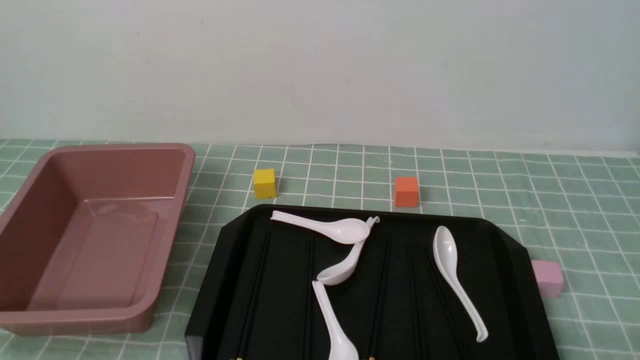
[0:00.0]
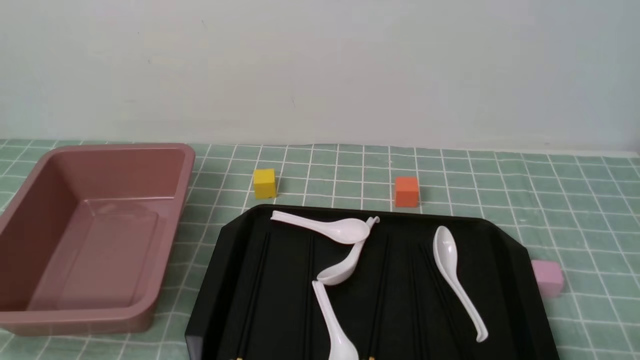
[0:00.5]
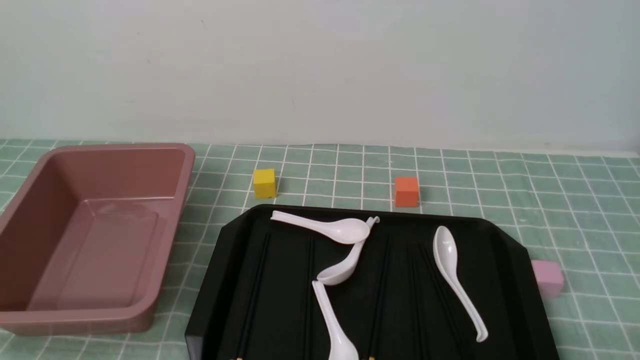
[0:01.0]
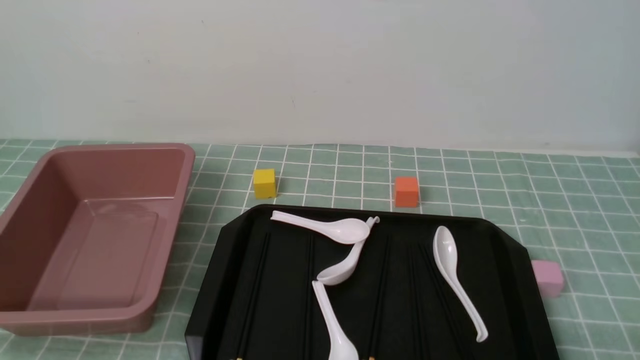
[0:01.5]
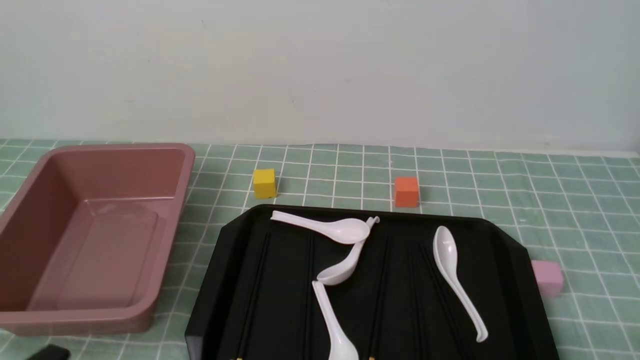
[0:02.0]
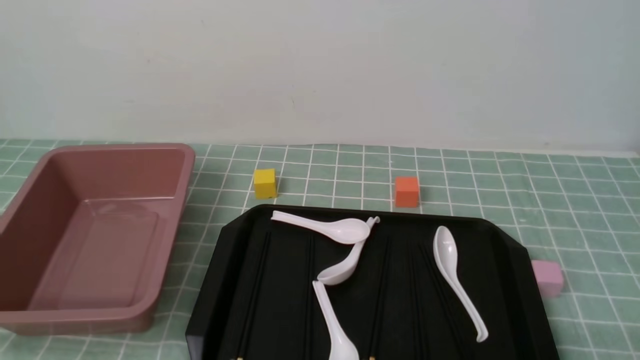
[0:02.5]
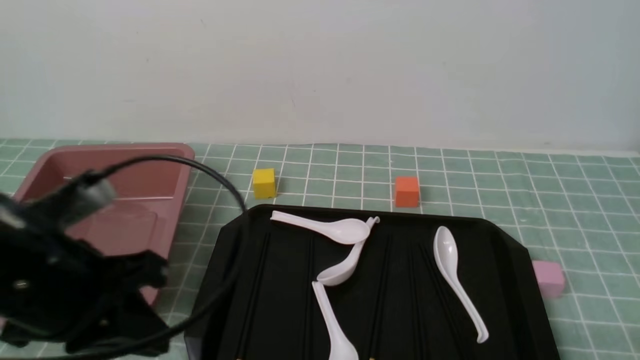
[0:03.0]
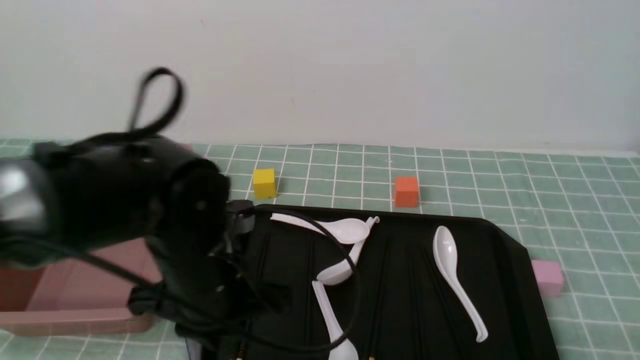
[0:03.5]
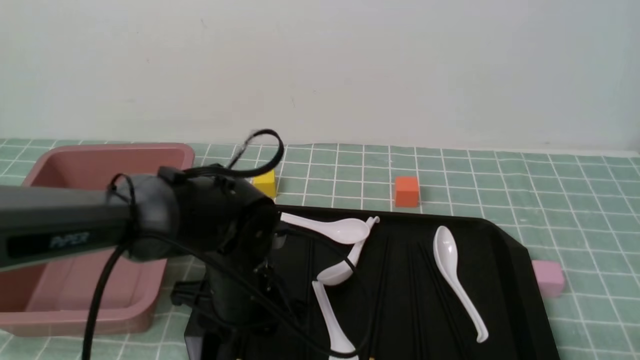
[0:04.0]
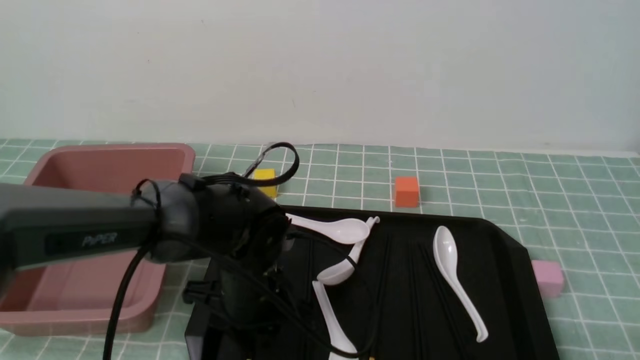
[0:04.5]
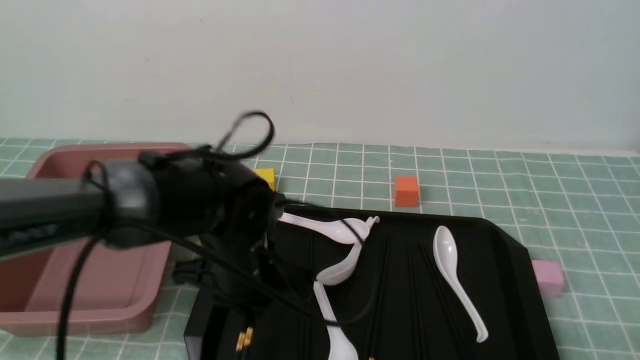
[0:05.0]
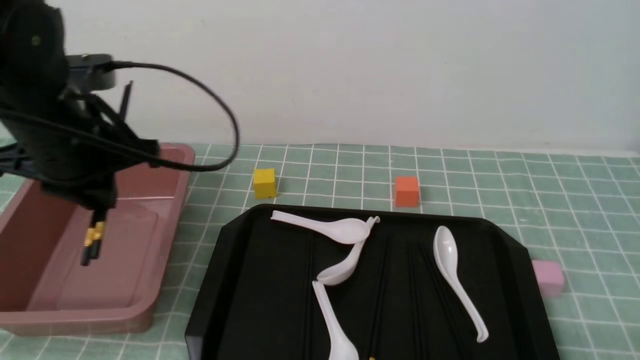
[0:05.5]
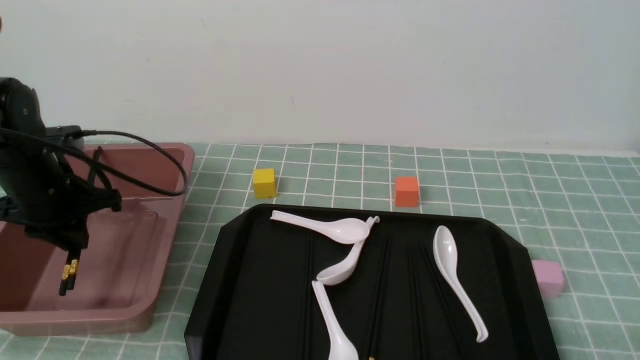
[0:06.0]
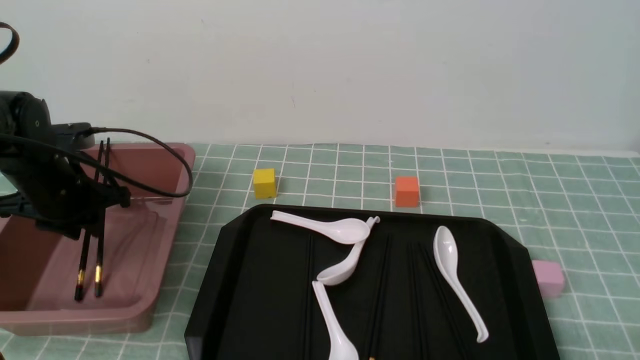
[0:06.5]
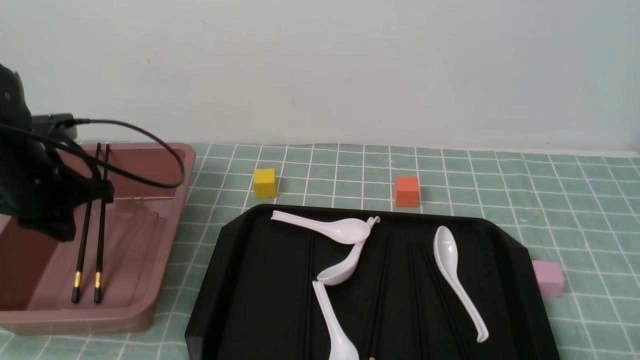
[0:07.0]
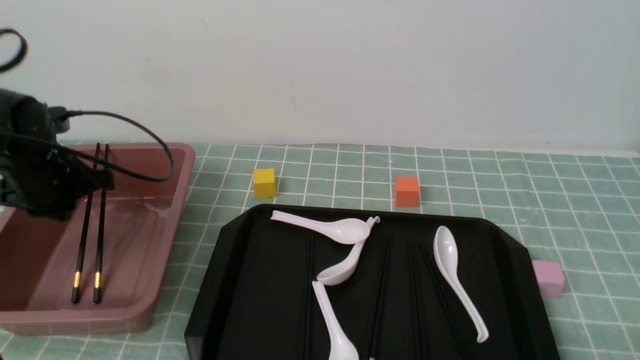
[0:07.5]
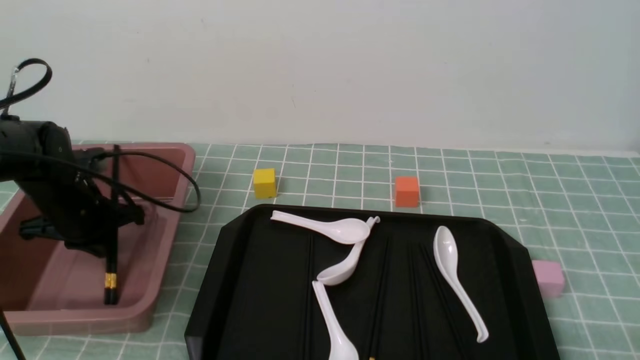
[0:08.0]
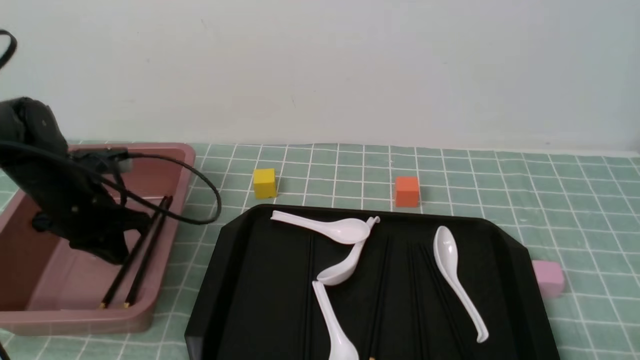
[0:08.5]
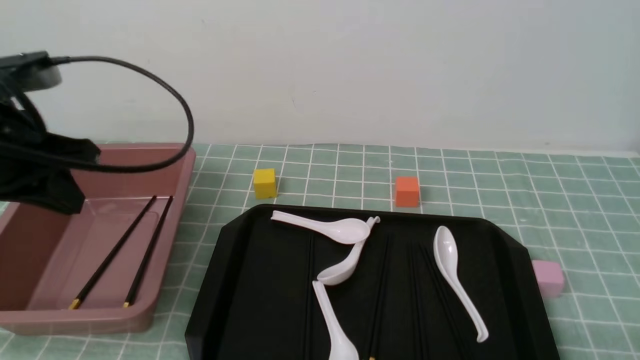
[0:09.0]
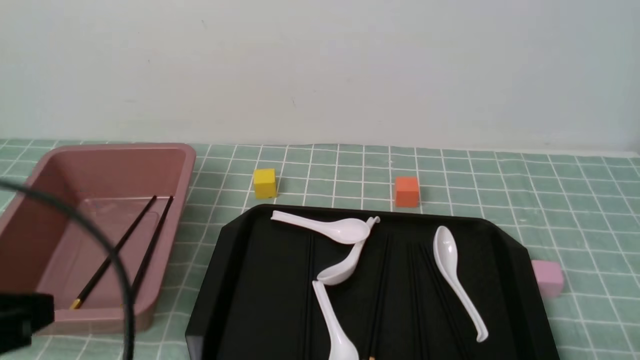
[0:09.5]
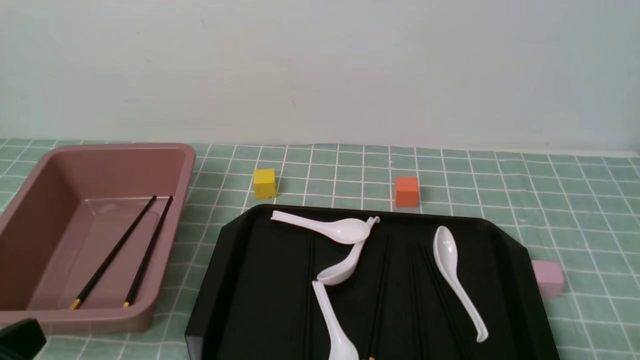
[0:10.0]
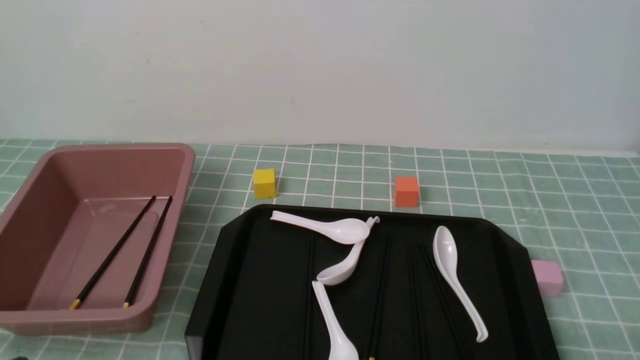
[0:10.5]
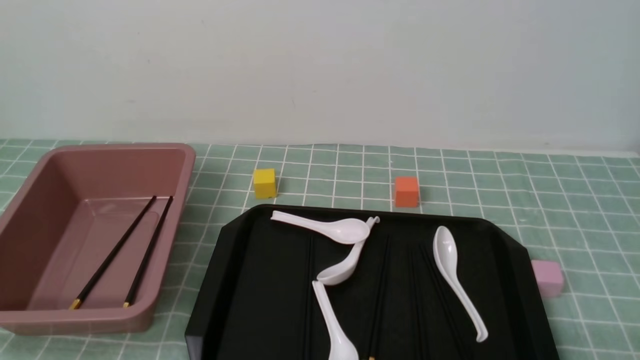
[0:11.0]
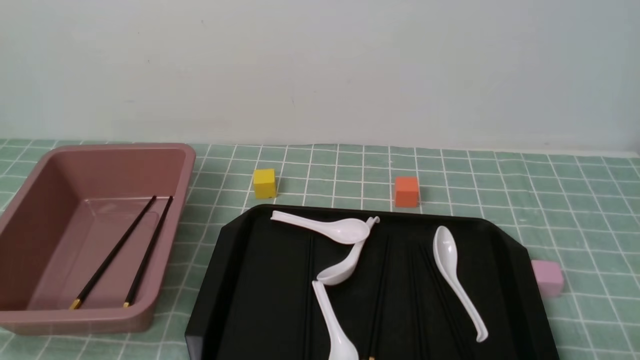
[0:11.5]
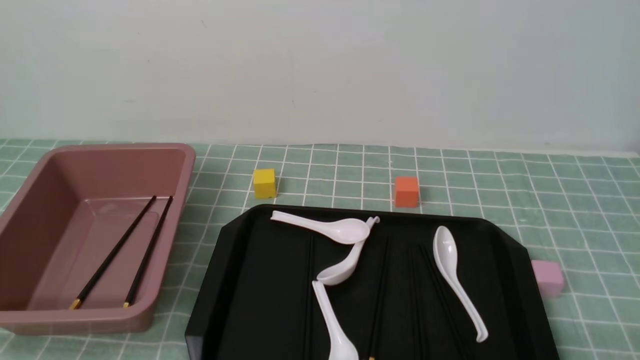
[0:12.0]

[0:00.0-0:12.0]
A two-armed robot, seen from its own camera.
Step, 0:00.0 to 0:05.0: use the left arm to grab a pair of chopsticks.
Step, 0:05.5 to 0:06.5: use the left arm to put the chopsticks into the lunch box.
0:02.0 to 0:04.0: The left gripper travels forward and to the right by some 30 cm, and closes and opens again.
0:04.0 to 0:06.0: The left gripper is displaced to the left by about 20 cm, and closes.
0:06.0 to 0:08.0: The left gripper heads downward, covering some 5 cm, and closes its fingers.
0:08.0 to 0:10.0: The left gripper travels backward by some 35 cm.
0:10.0 to 0:12.0: The left gripper heads downward, covering approximately 10 cm.

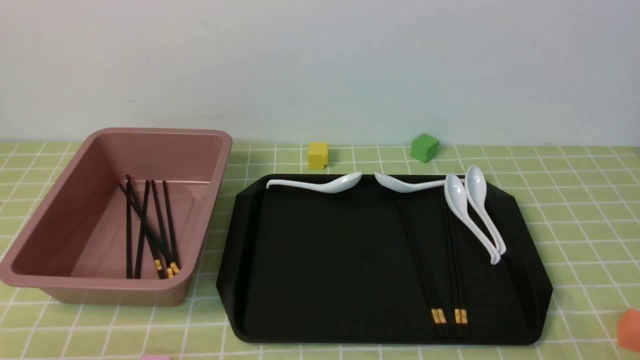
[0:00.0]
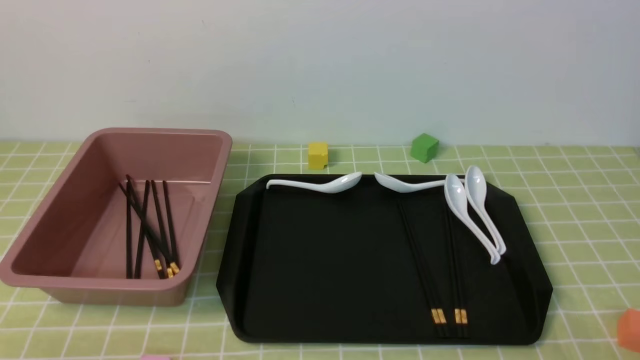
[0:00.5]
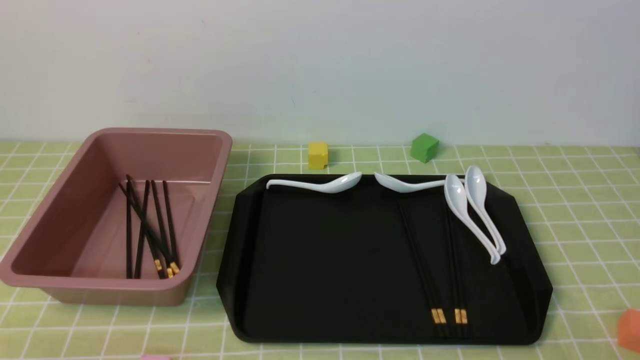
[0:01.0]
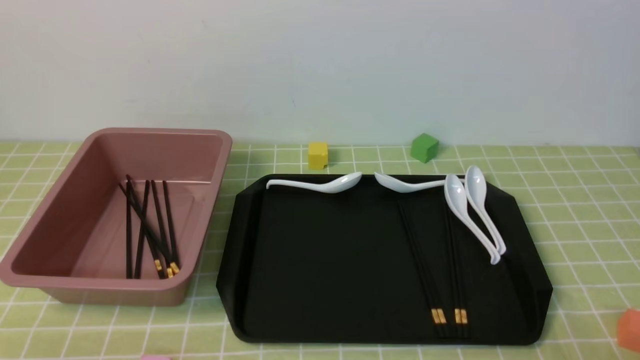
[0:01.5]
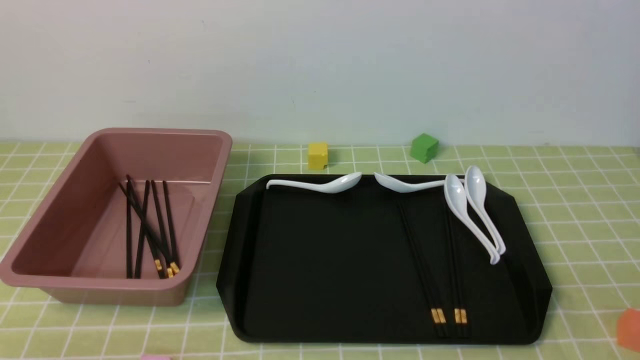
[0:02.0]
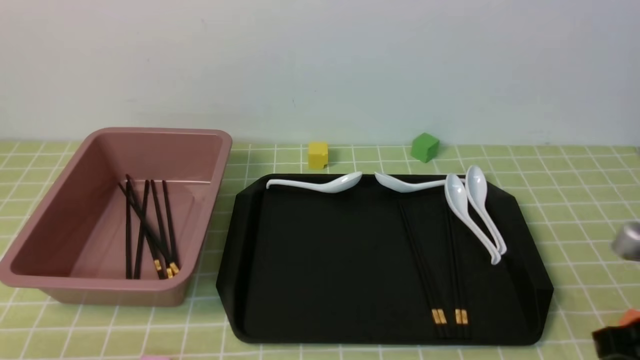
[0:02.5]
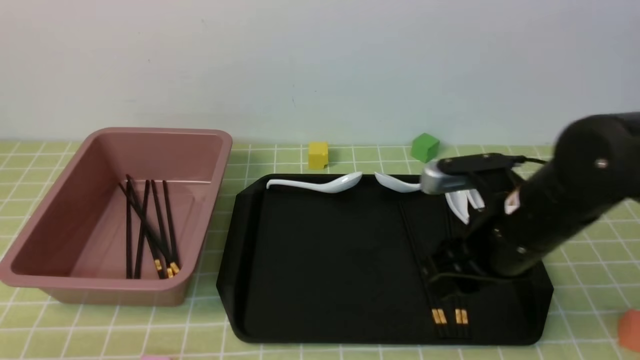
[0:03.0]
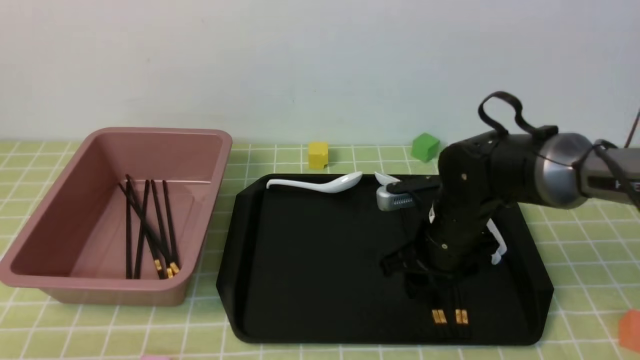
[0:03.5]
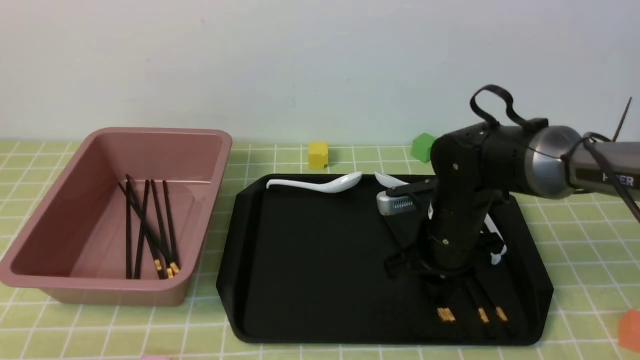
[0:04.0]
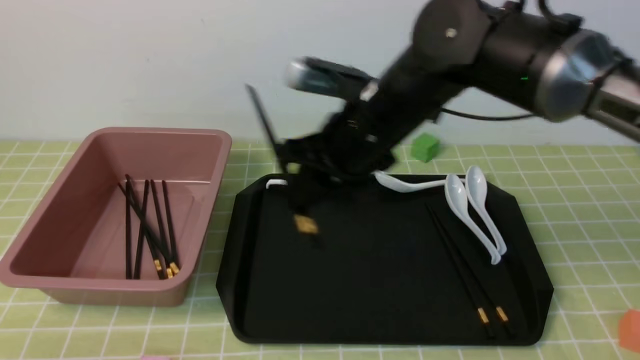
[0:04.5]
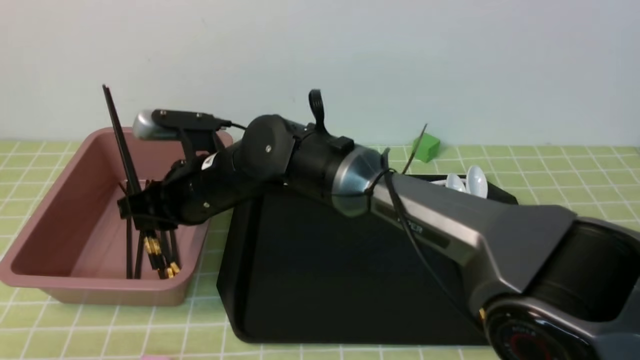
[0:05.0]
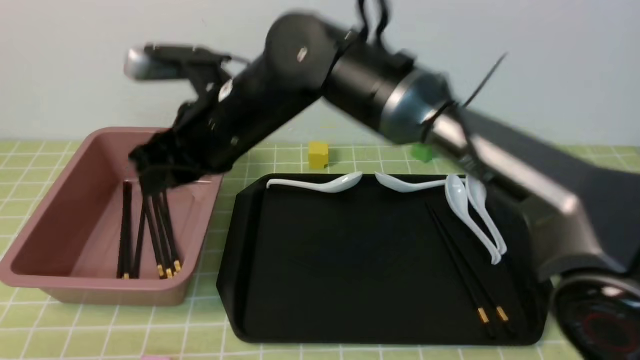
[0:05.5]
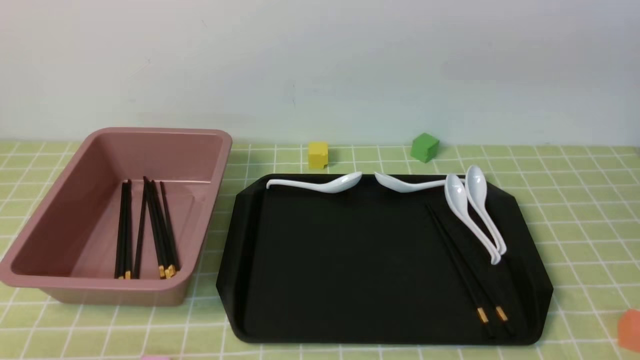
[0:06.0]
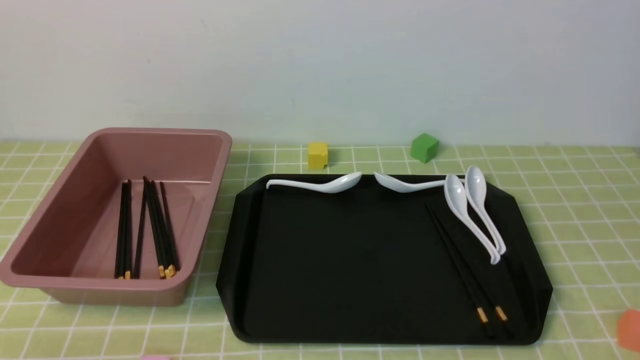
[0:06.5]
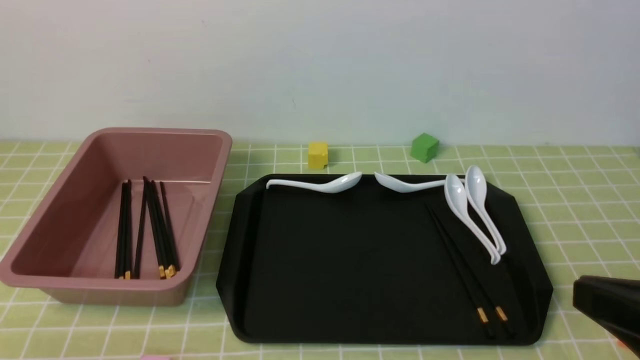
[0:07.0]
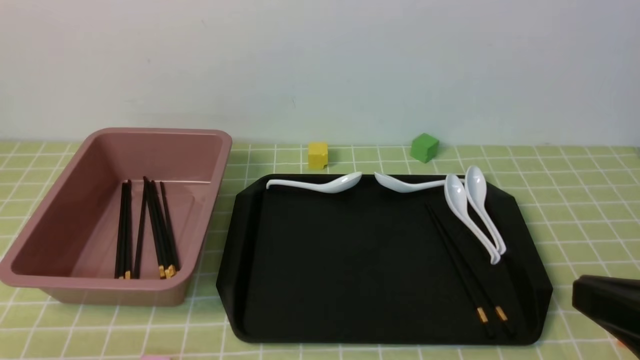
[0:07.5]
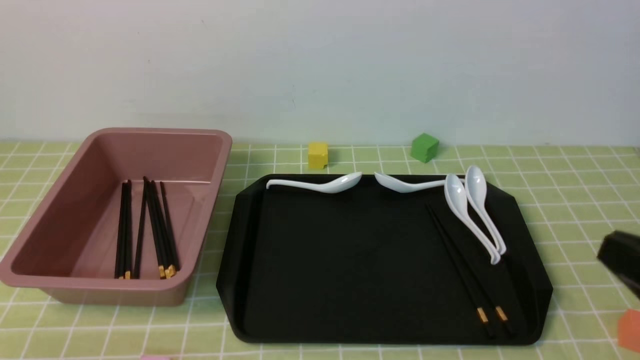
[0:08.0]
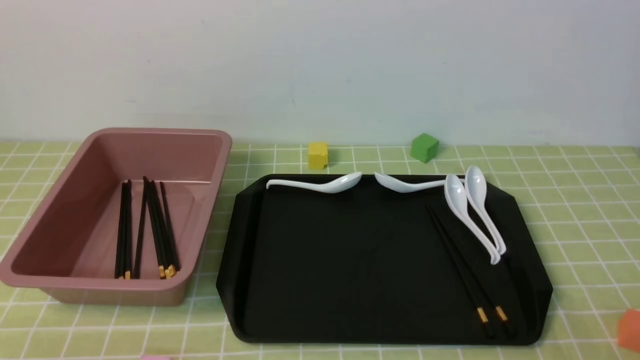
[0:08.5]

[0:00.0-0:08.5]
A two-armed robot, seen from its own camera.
Step, 0:00.0 to 0:04.0: use the right arm to grab a pair of chopsticks.
Step, 0:04.5 to 0:05.5: use the right arm to put the chopsticks into the lunch box.
0:02.0 to 0:04.0: The right gripper is displaced forward and to the left by some 35 cm, and opens and closes again.
0:04.0 to 0:06.5: The right gripper shifts some 35 cm upward and backward, goes to the left and returns, about 25 cm each way, and closes up.
